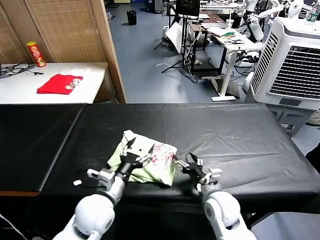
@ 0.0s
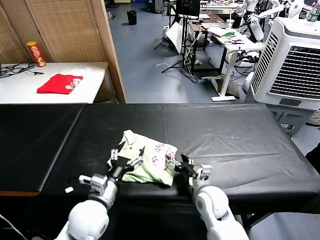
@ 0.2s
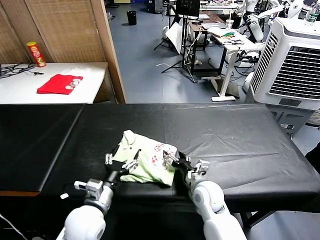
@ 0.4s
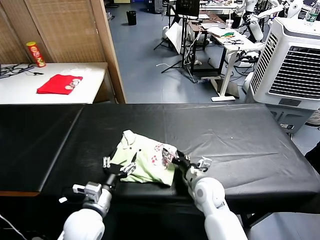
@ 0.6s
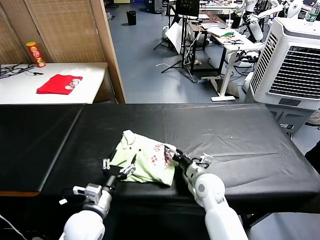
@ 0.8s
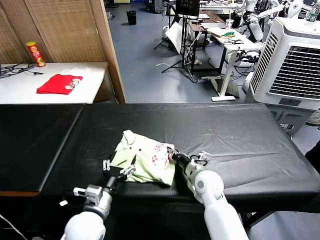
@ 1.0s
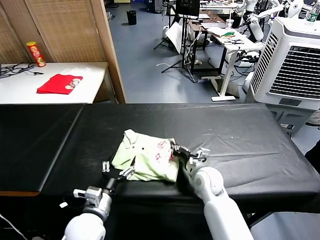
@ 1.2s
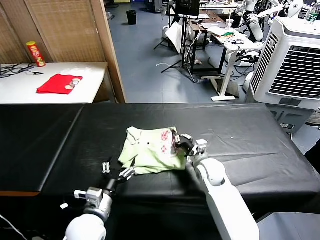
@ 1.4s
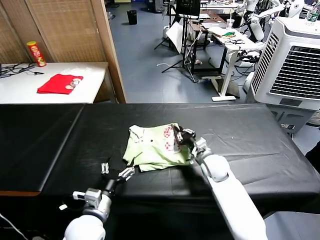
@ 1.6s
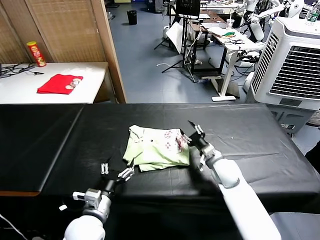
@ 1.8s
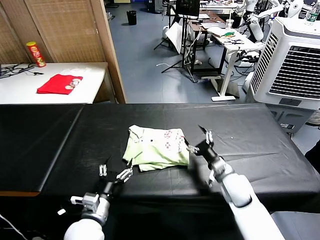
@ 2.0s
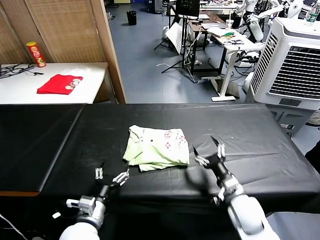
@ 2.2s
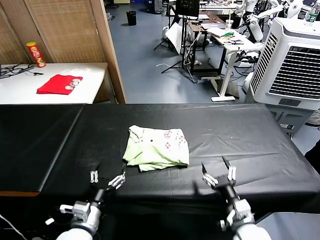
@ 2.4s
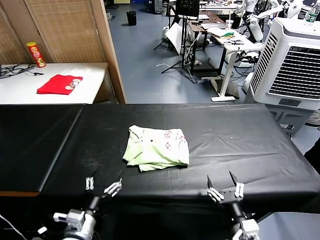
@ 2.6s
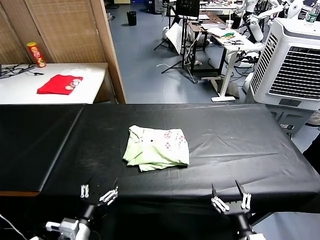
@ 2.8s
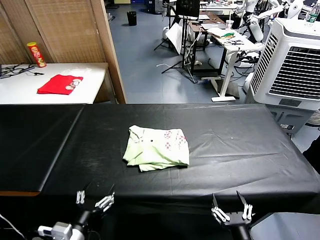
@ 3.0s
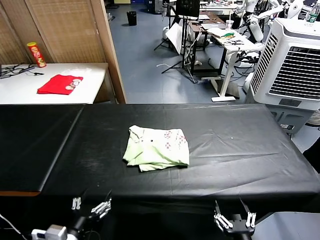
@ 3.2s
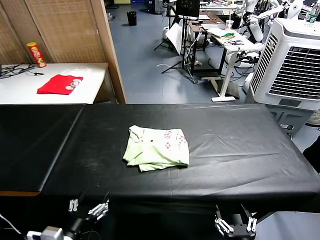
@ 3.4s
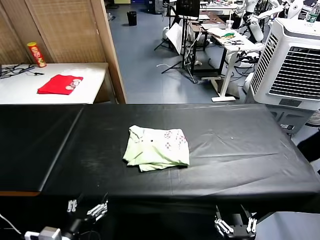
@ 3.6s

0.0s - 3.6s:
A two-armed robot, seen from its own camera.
Task of the whole recording: fold and organize the clothes.
Step, 0.0s - 1.6s: Drag the clothes to the center of the table.
0.0s - 1.8s: The right gripper is displaced forward by about 15 cm, and closes. Meanwhile the left gripper shifts by roughly 5 cm.
1.8s - 3.6s: The left gripper moves backward, to the left and upward, some 15 cm, while the right gripper goes about 35 cm backward, and opens.

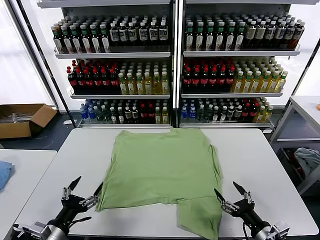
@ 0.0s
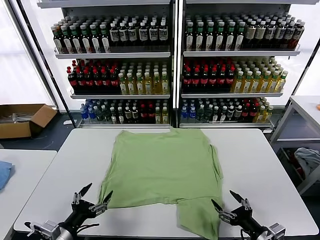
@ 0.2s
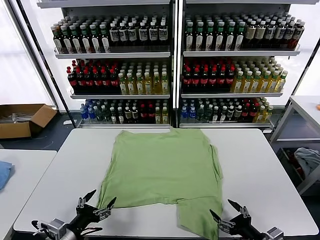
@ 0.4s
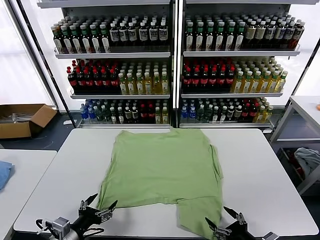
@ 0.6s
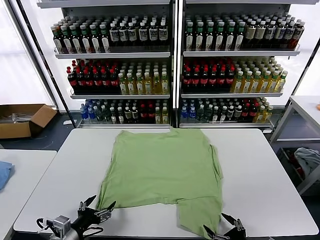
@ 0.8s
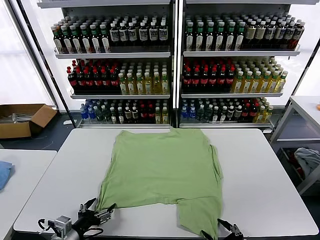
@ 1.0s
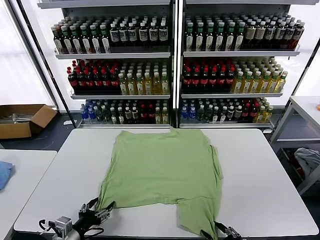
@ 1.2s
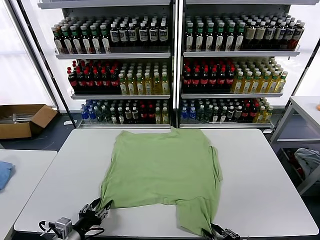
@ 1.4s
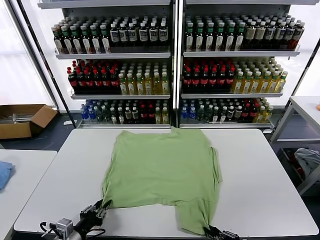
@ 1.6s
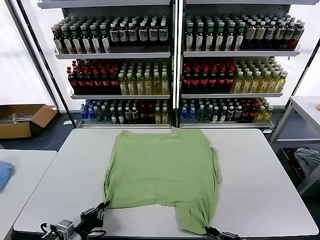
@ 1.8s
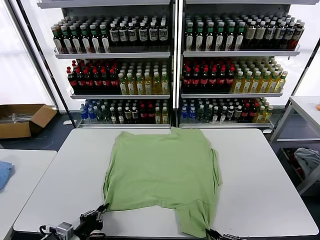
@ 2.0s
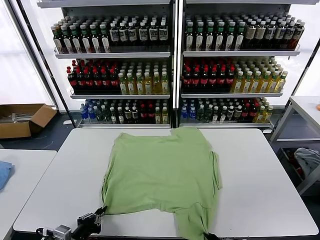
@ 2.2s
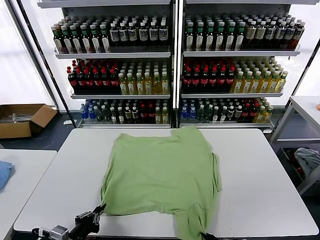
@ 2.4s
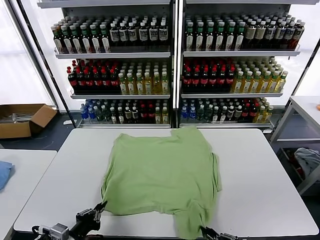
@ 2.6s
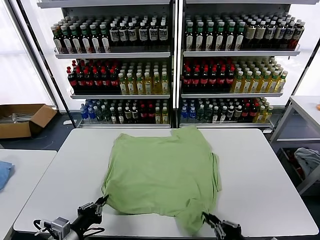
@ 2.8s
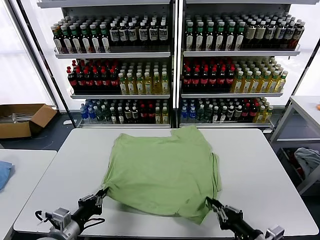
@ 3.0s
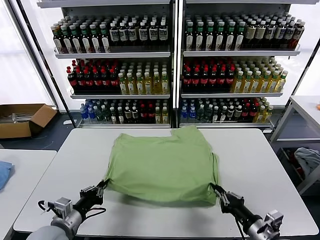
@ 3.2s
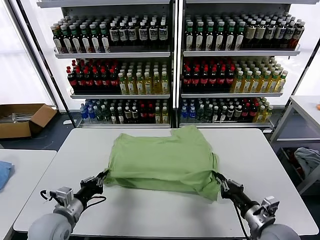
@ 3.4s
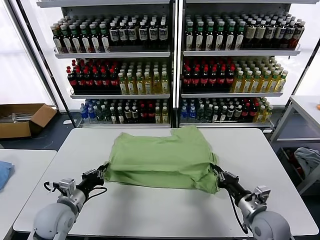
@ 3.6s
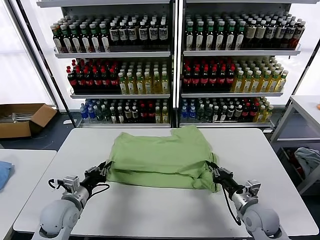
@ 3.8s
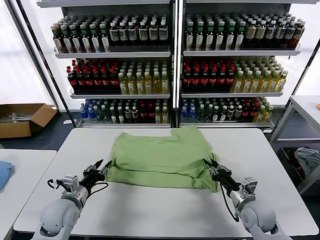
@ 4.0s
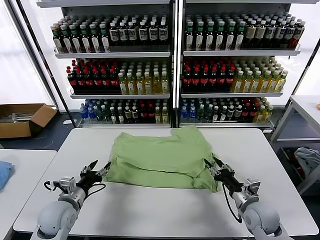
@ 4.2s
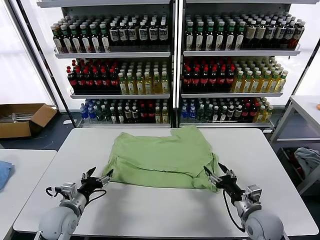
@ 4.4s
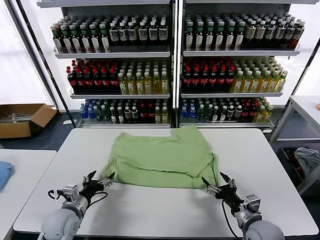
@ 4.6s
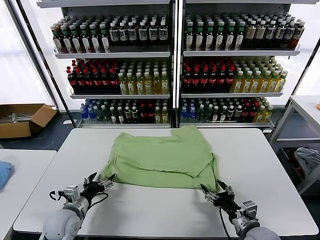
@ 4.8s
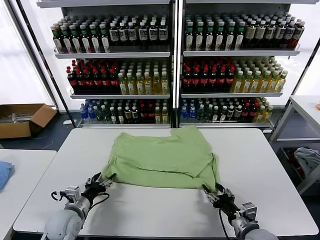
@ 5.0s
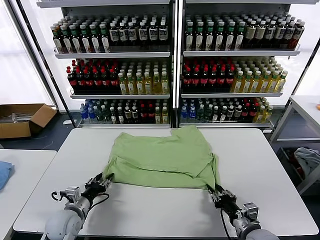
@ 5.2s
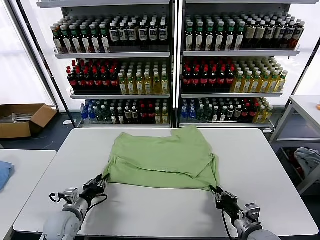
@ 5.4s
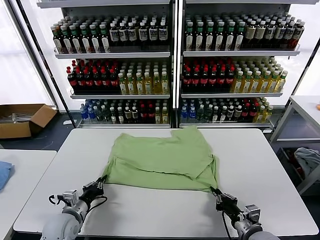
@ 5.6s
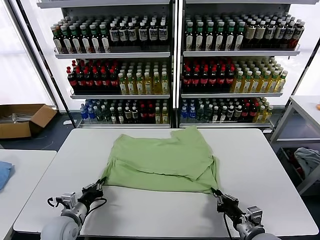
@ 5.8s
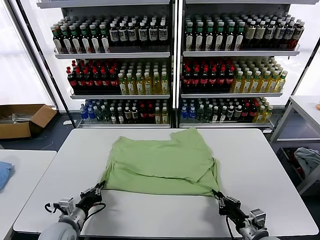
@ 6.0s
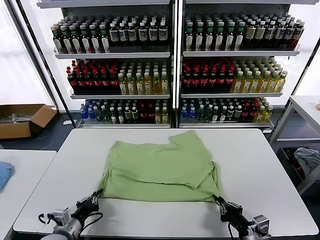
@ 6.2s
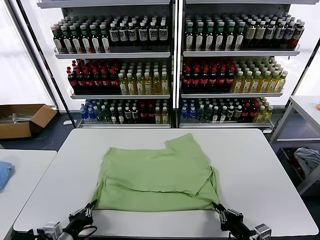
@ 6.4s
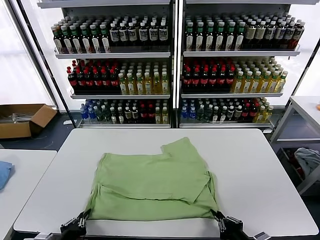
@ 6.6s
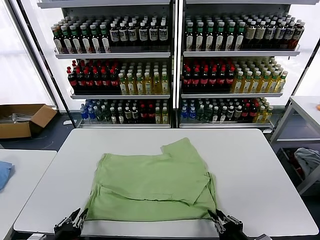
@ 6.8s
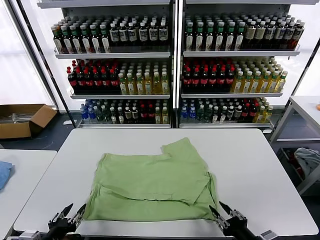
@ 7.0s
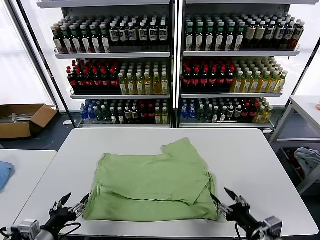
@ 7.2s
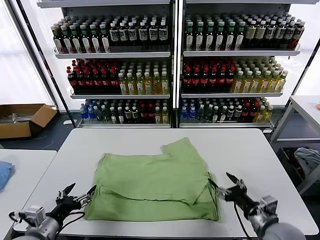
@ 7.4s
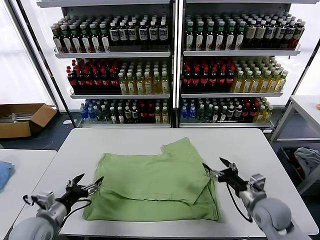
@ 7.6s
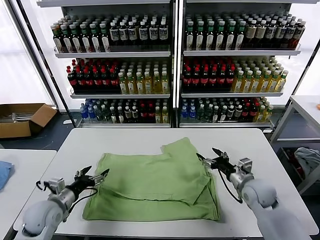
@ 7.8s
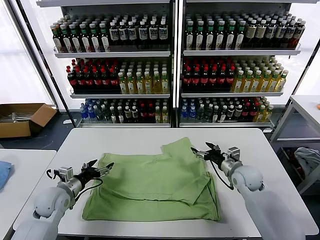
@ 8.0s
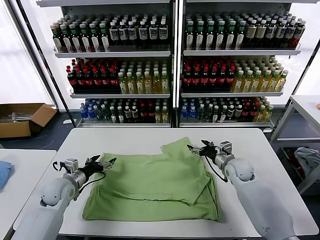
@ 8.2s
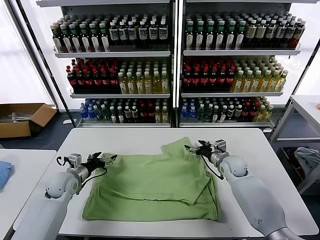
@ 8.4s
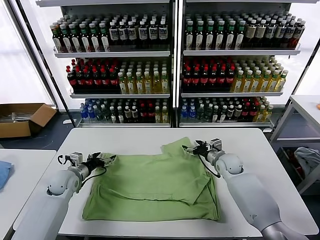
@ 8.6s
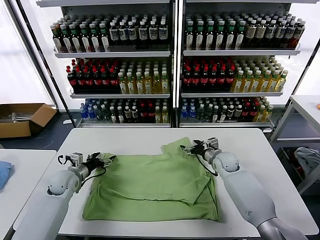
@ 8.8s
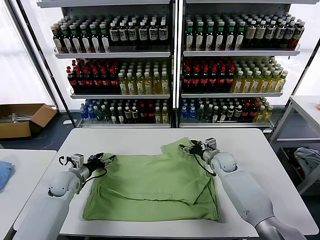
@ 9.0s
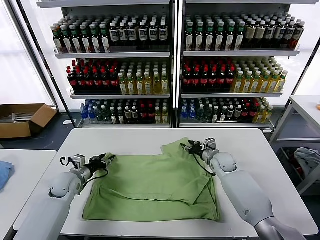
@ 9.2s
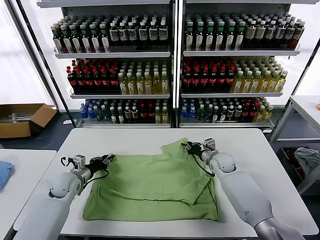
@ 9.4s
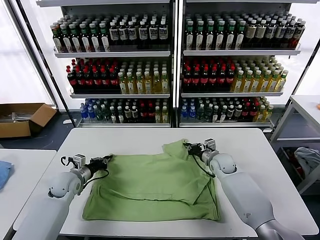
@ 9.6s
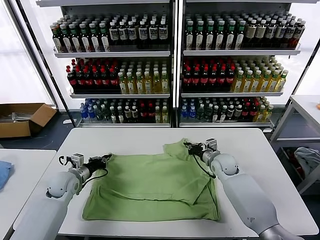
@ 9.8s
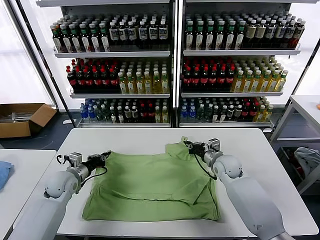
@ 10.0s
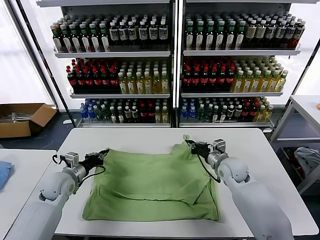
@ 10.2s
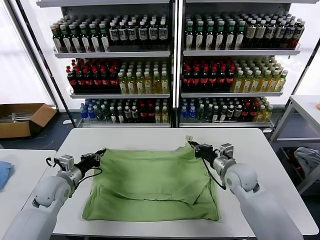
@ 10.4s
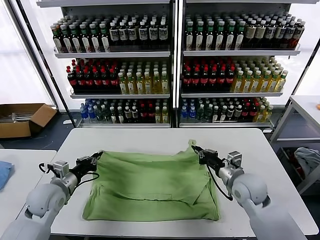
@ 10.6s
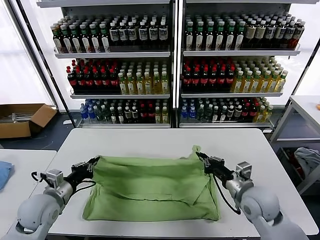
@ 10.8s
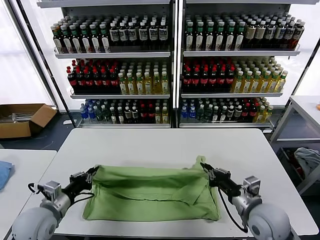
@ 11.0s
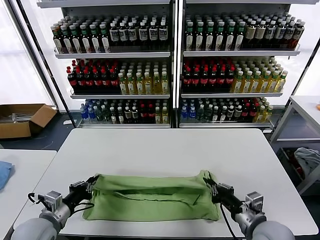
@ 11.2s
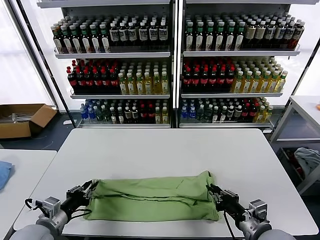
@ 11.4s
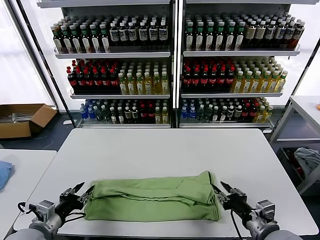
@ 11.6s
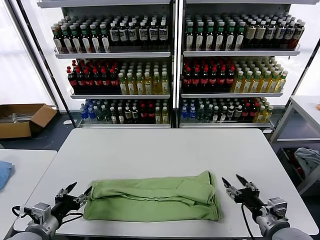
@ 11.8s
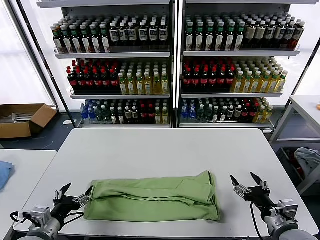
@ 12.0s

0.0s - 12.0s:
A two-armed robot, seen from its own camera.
Task of the whole recording: fold and organize the clothes.
Step, 0.0s - 1.8s: use both grippers simultaneously to clamp the lower edge of the clothing fabric.
Step, 2.0s - 4.2s: use both grippers to drag the lower edge of the fabric forward and fold it over the upper edge.
Step, 4.4s - 7.0s: Drag the clothes downward with both gripper.
Step, 7.2s - 9.6s: use both grippers simultaneously to clamp the upper edge of the clothing fabric.
Step, 9.8s - 11.4s: use both grippers to drag the upper edge of the fabric backward and fold it over the lower edge.
1.6s - 3.0s: The left gripper travels upward by about 5 cm, and closes its fingers. The right gripper shifts roughly 5 cm forward.
3.0s - 4.4s: Both grippers travel together forward, about 10 cm. The right gripper opens up, while the left gripper opens up.
4.4s - 6.0s: The right gripper travels backward by roughly 5 cm, and closes its fingers; the left gripper changes place by about 5 cm, and closes up.
6.0s - 7.6s: The right gripper moves forward, approximately 15 cm, and opens up. Meanwhile the left gripper is displaced upward by approximately 5 cm, travels backward and back again, some 15 cm each way, and opens up.
7.6s - 9.0s: The two grippers go roughly 20 cm forward. The right gripper closes.
9.0s - 10.4s: The right gripper is displaced backward and upward by roughly 15 cm, and closes up; the left gripper moves upward and backward, approximately 10 cm, and closes its fingers.
10.4s - 12.0s: The right gripper moves backward and to the right, some 20 cm, and opens its fingers; the left gripper shifts approximately 20 cm backward, and opens.

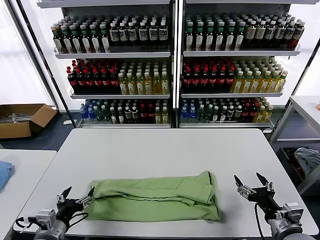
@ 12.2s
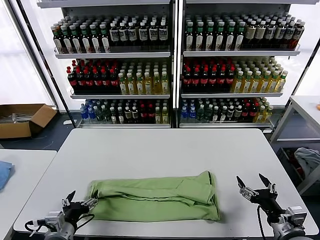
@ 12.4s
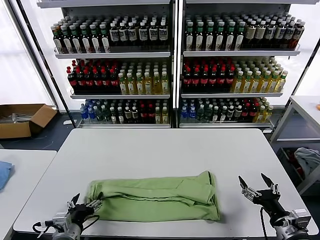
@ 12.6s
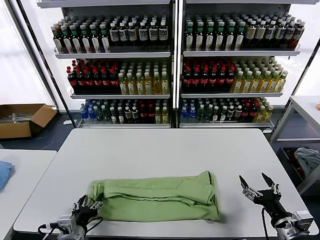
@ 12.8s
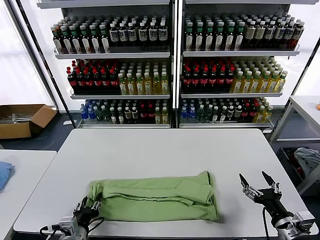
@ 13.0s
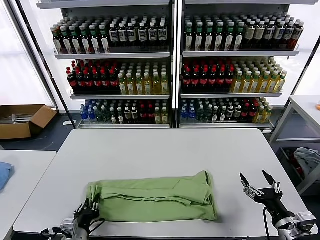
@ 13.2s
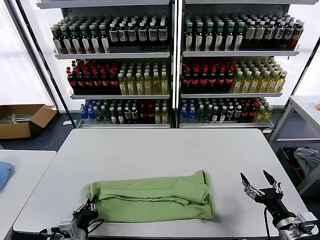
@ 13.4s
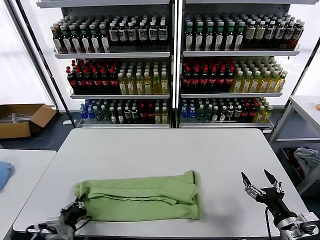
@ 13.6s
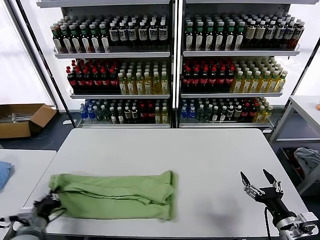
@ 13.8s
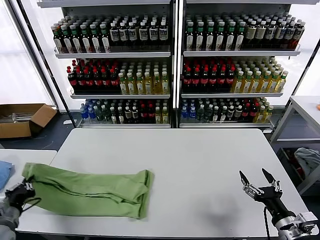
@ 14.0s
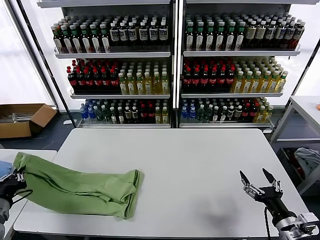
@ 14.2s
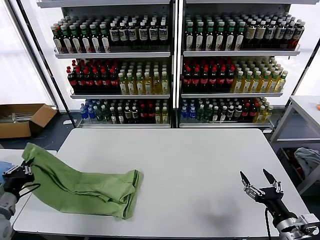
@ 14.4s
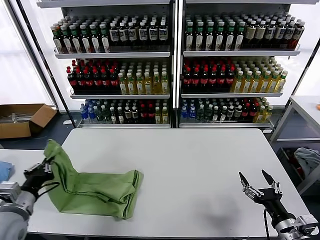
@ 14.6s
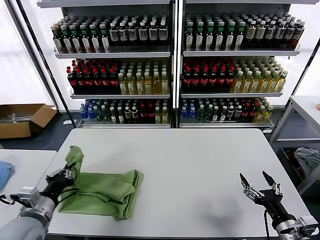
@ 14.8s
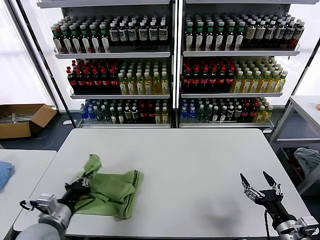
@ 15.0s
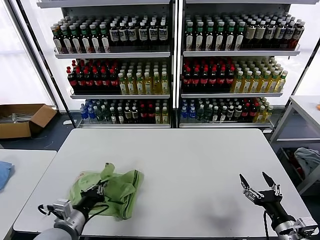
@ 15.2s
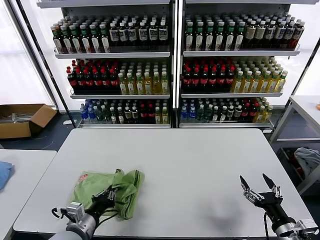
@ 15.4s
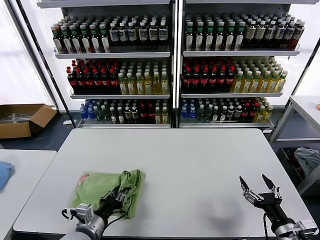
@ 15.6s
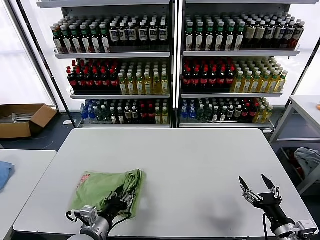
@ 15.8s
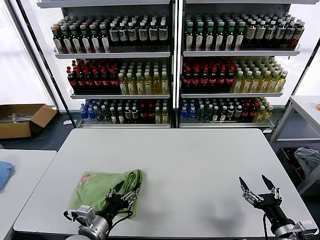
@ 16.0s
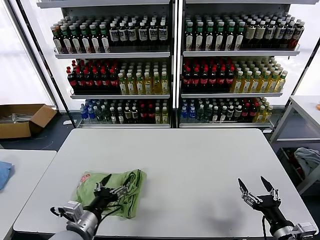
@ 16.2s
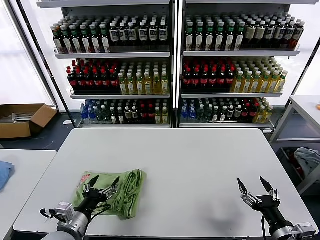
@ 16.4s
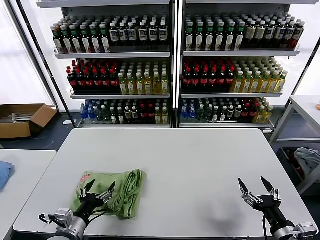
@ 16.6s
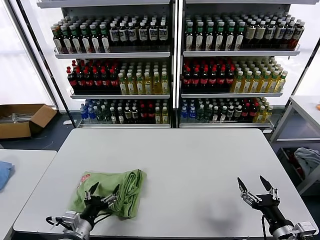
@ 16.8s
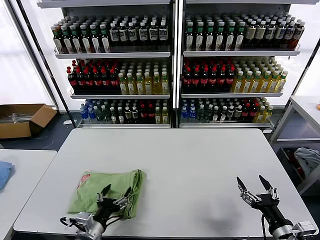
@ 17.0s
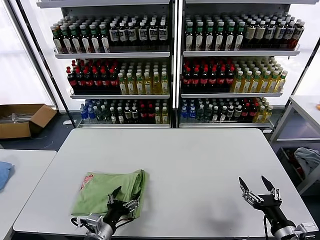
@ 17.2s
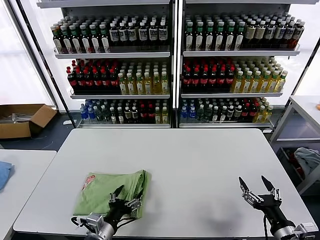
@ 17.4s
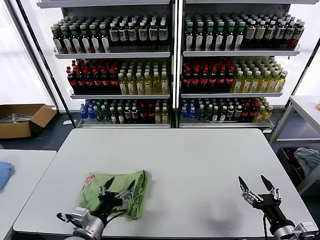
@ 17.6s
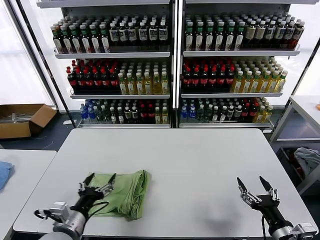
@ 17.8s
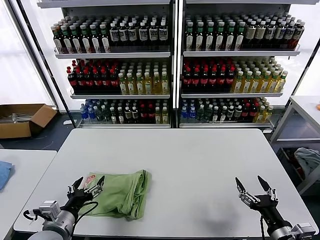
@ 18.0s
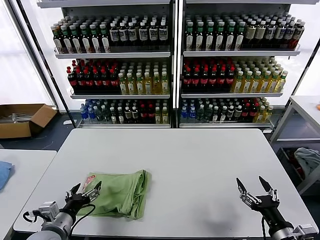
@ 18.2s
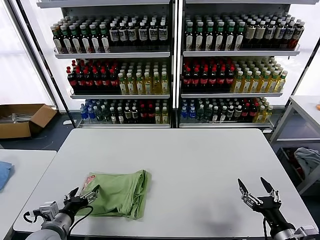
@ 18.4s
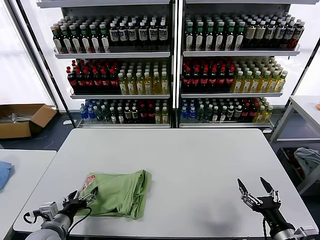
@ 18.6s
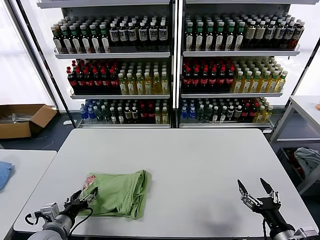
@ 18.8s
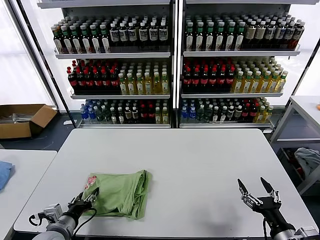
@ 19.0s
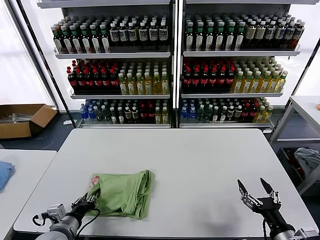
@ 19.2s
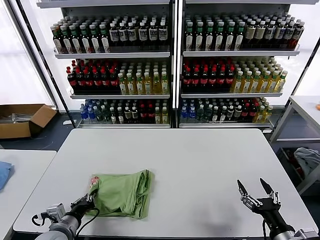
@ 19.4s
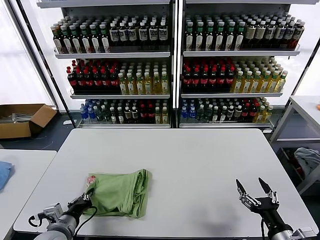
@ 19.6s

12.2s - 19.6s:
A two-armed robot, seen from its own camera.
Task of the whole recording: fold and organize the clothes.
Step, 12.2s - 13.4s: use the left gripper to clamp the left edge of the fabric.
Step, 13.6s - 15.8s: use the left gripper to drag the left edge of the fabric to the left and folds it over the right edge.
12.2s - 13.6s: The left gripper travels downward by about 5 cm, and closes up.
13.6s - 15.2s: The left gripper shifts about 5 cm upward, and reaches approximately 15 cm to the left, then returns.
15.2s - 16.6s: The left gripper opens.
16.6s - 18.2s: The left gripper goes to the right and returns, about 10 cm each way.
18.2s - 19.6s: The left gripper closes up.
